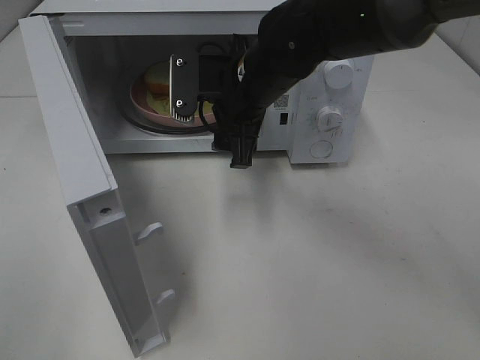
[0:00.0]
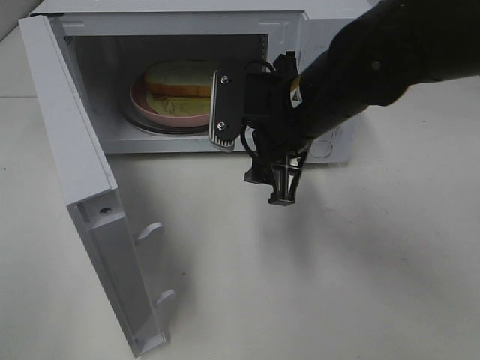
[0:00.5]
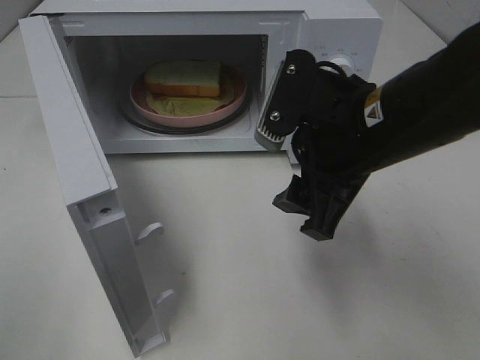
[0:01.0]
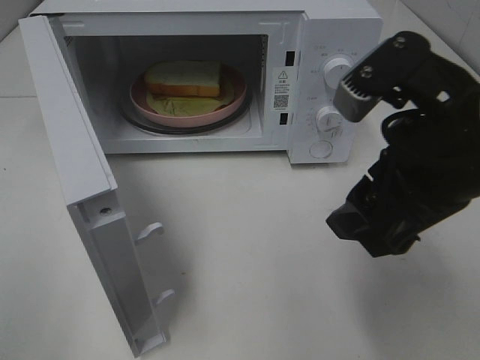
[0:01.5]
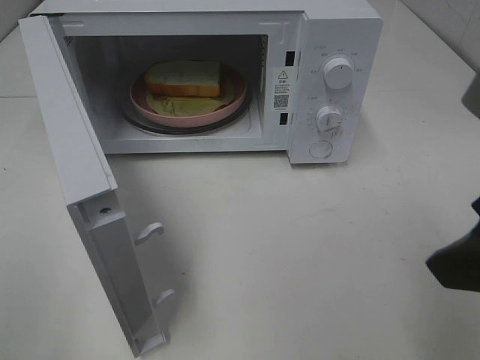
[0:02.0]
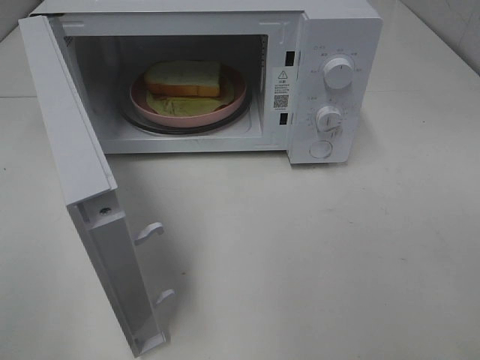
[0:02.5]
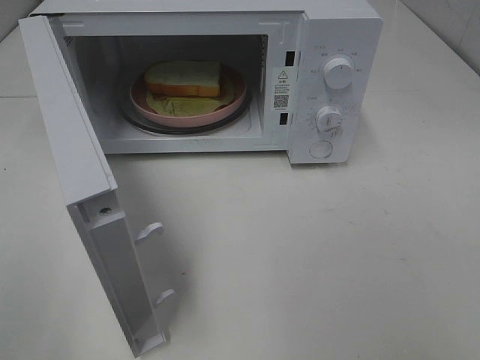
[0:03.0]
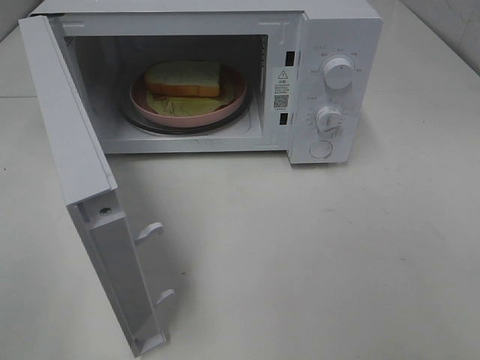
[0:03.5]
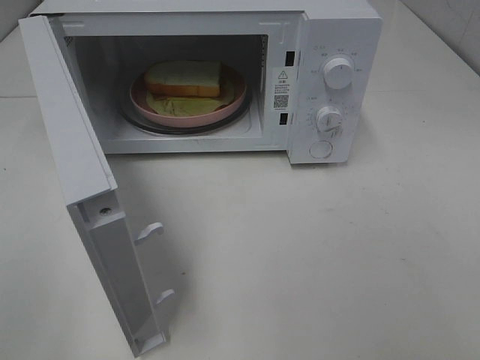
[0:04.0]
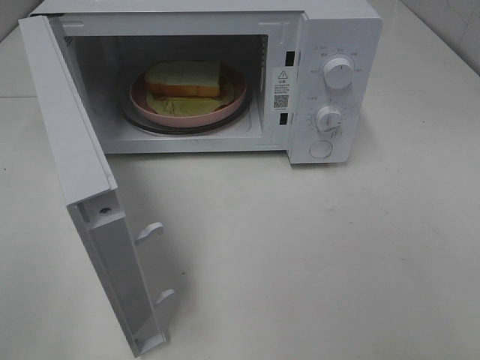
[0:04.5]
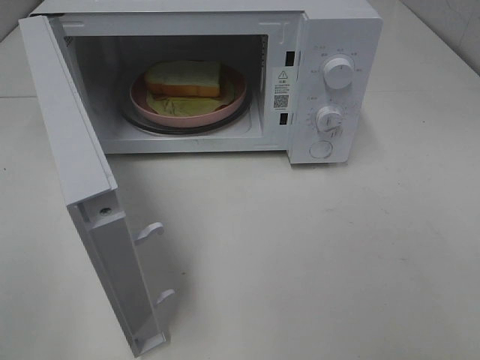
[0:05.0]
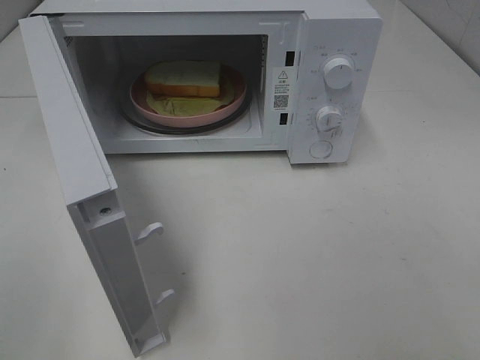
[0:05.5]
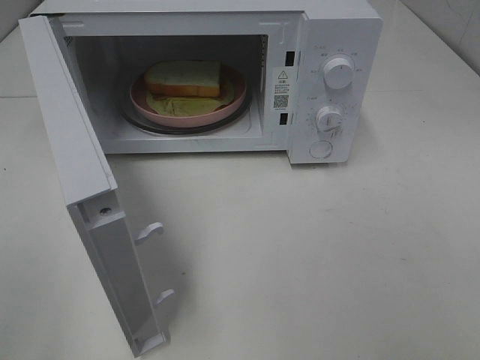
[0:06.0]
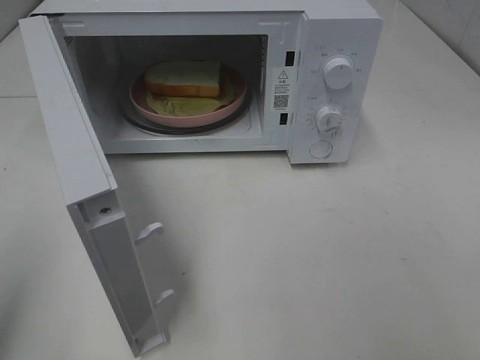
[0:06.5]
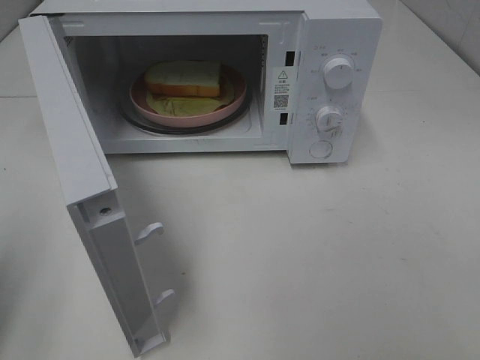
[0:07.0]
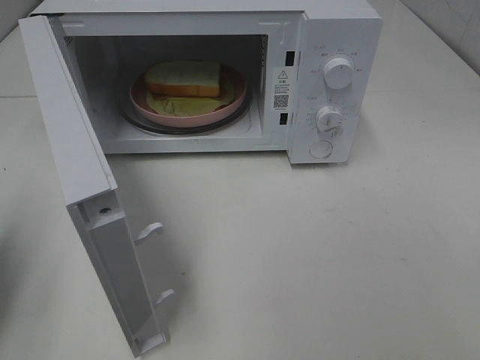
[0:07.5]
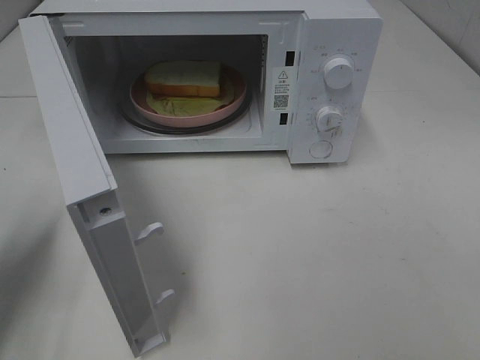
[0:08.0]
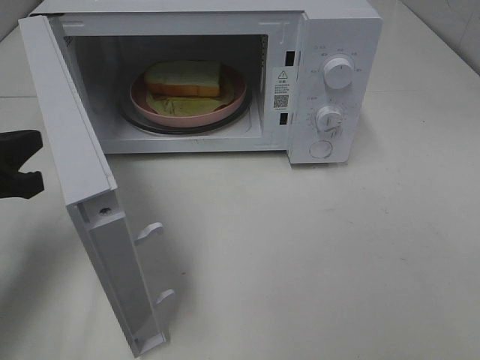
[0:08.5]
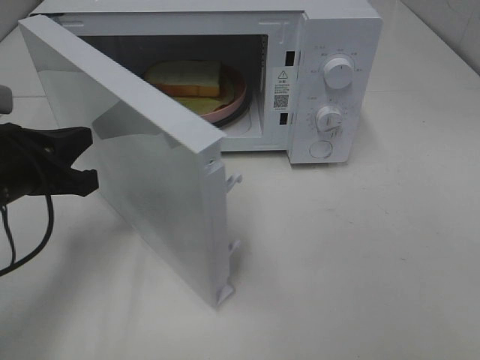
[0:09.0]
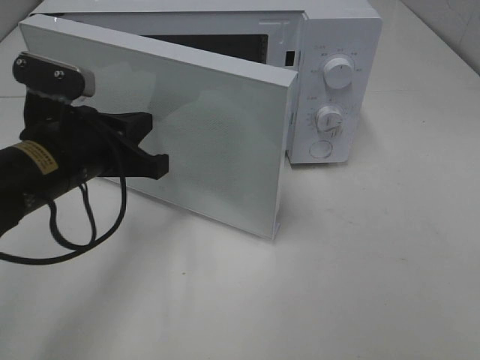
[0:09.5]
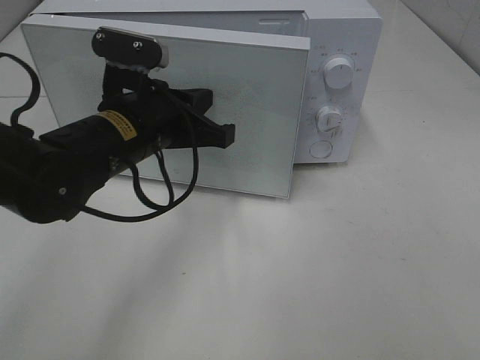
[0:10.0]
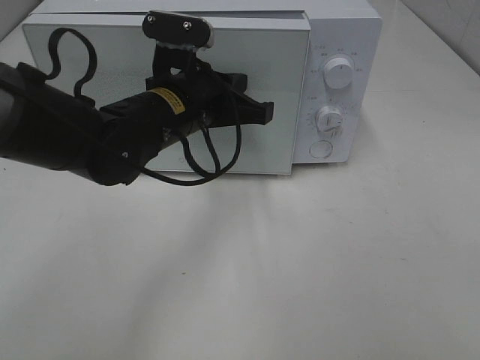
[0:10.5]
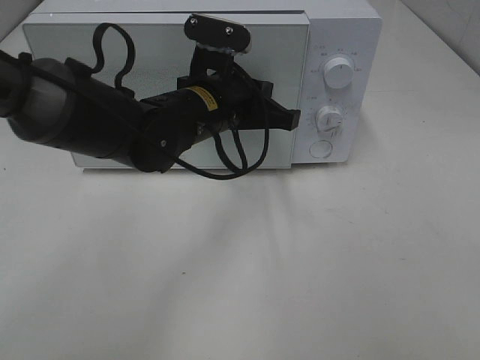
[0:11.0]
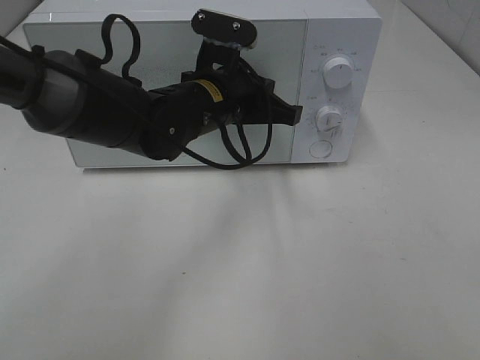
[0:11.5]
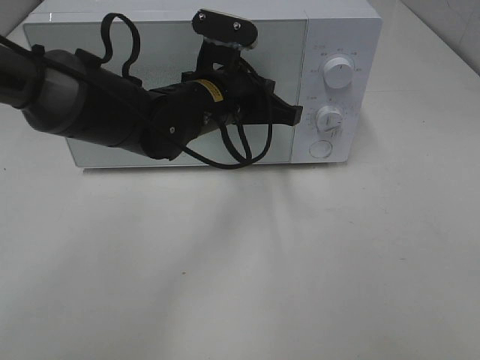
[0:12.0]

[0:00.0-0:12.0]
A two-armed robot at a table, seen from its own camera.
Task of the whole recording: Heat Sandwich.
0:00.0 to 0:02.0: The right gripper travels backward and to the right by about 30 cm.
0:02.0 to 0:04.0: The right gripper heads backward and to the right, covering roughly 15 cm.
0:06.0 to 0:08.0: The left gripper is displaced forward and downward by roughly 20 cm, and closes.
0:08.0 to 0:10.0: The left gripper goes approximately 25 cm to the right and forward.
0:10.0 to 0:12.0: The left gripper heads to the right and forward, covering approximately 10 cm.

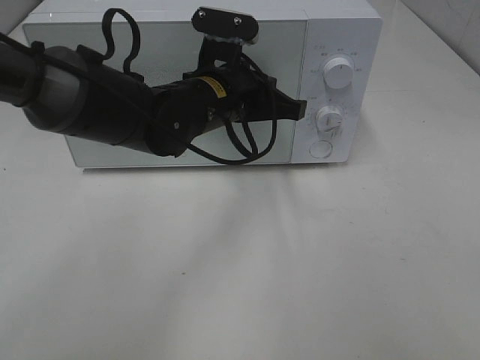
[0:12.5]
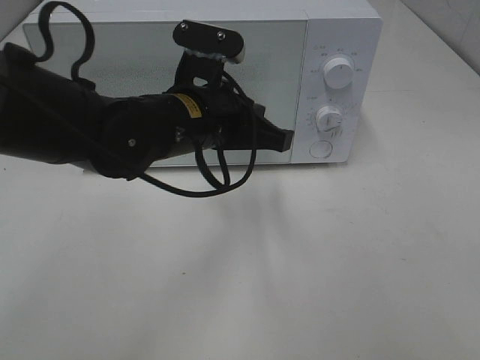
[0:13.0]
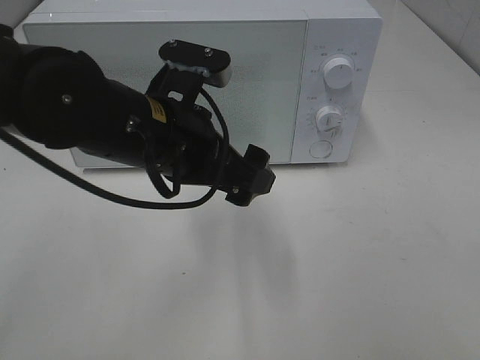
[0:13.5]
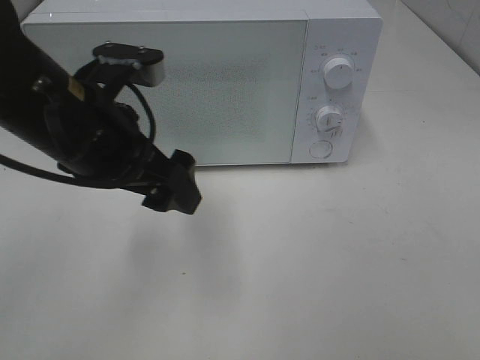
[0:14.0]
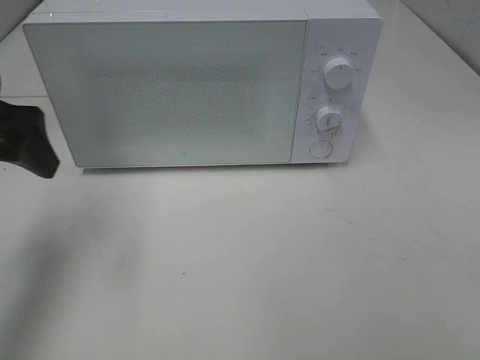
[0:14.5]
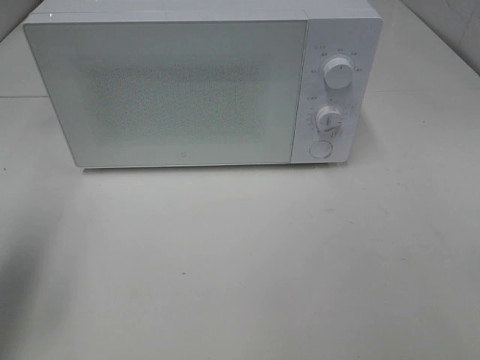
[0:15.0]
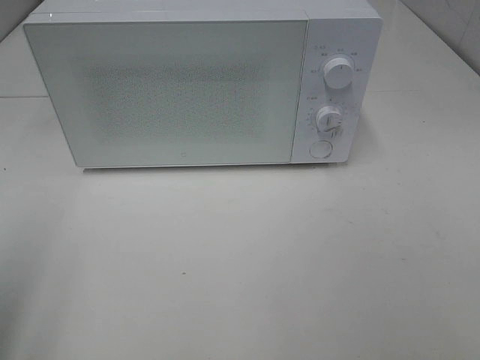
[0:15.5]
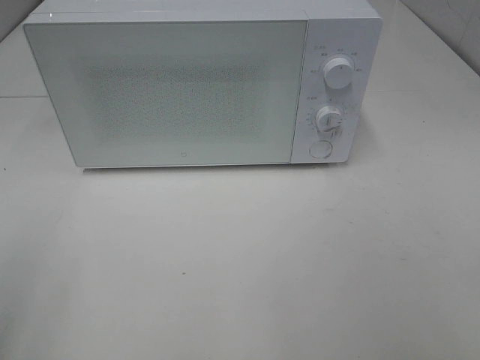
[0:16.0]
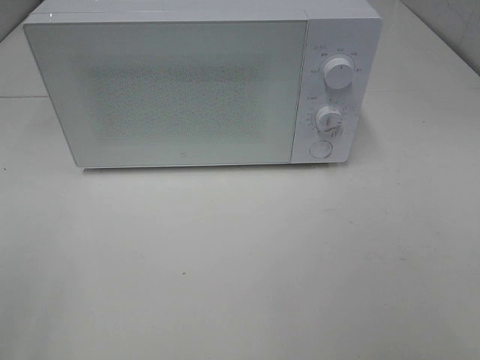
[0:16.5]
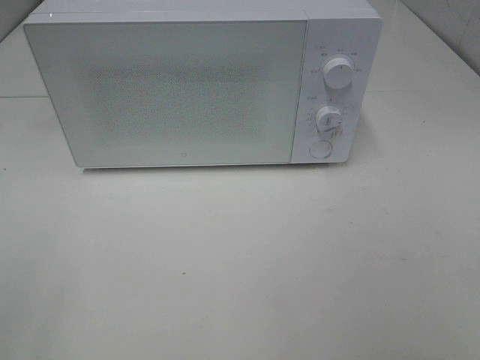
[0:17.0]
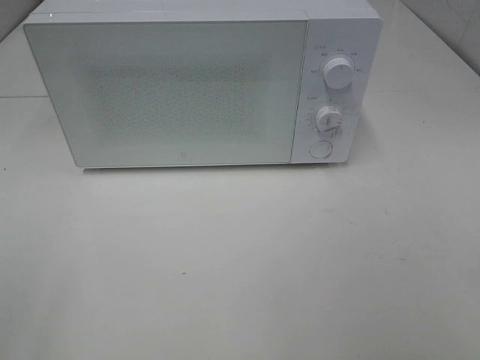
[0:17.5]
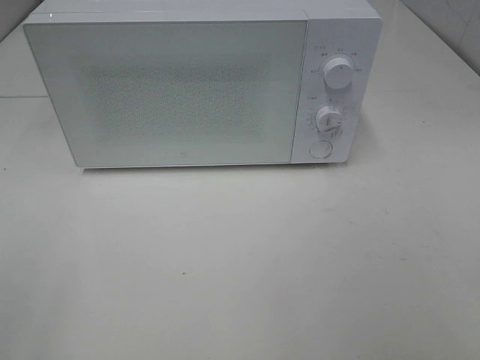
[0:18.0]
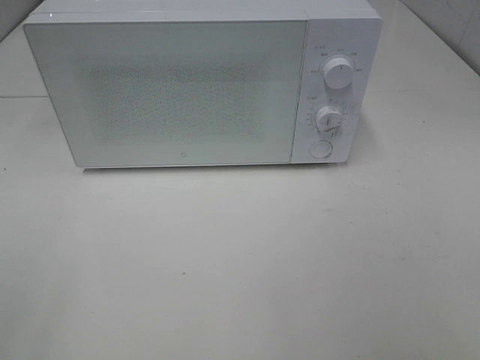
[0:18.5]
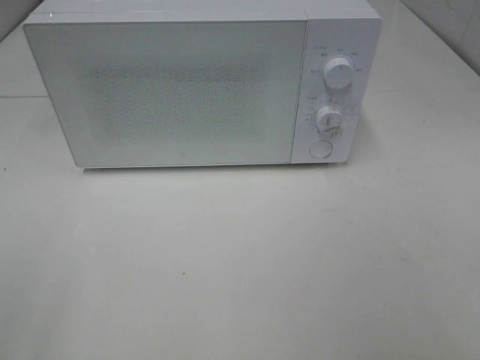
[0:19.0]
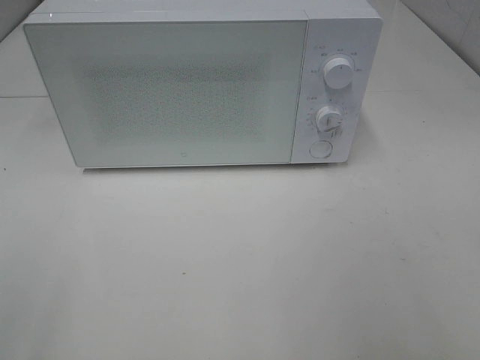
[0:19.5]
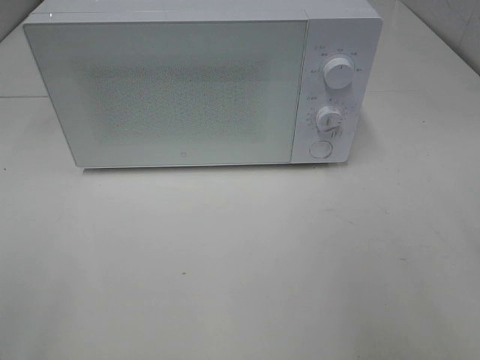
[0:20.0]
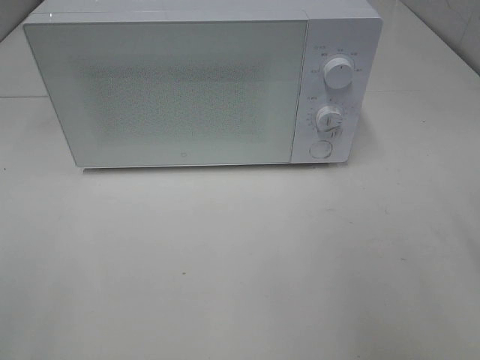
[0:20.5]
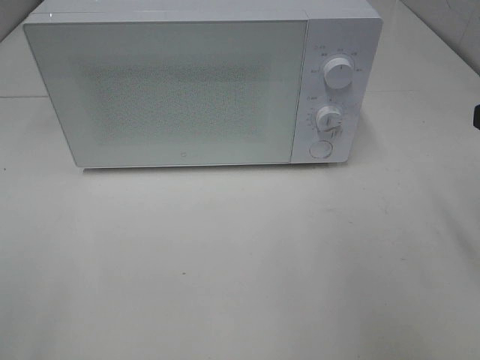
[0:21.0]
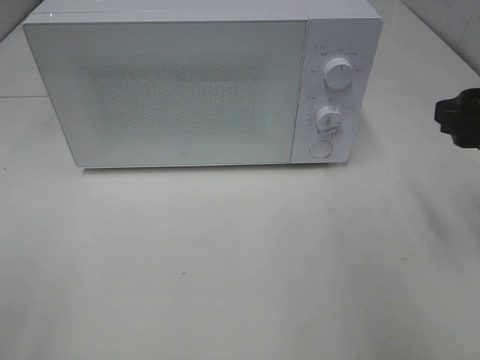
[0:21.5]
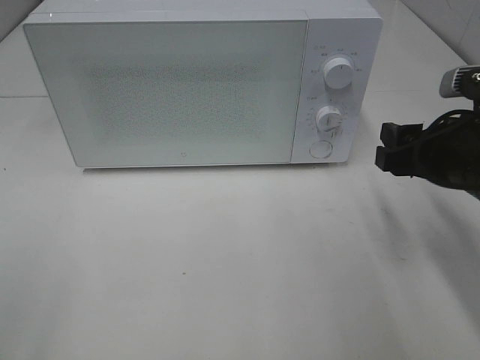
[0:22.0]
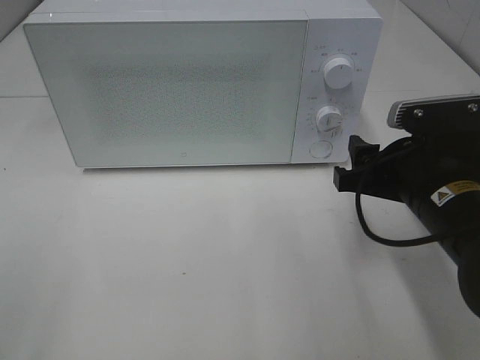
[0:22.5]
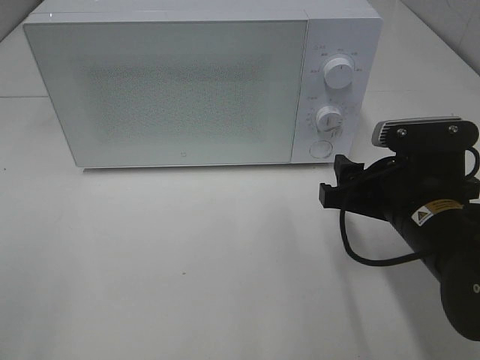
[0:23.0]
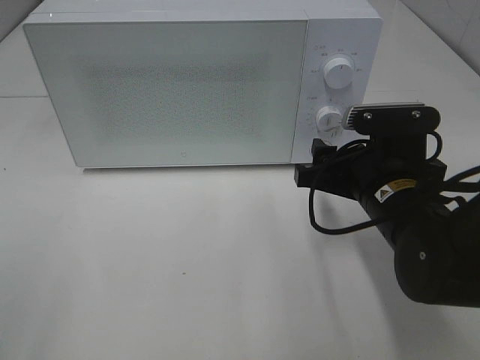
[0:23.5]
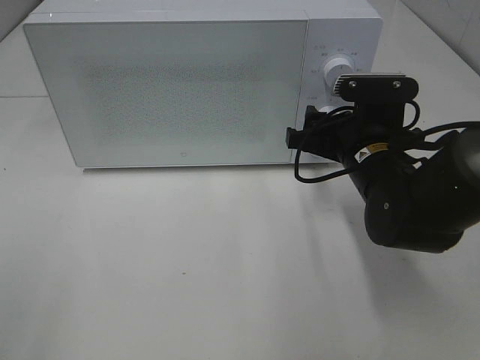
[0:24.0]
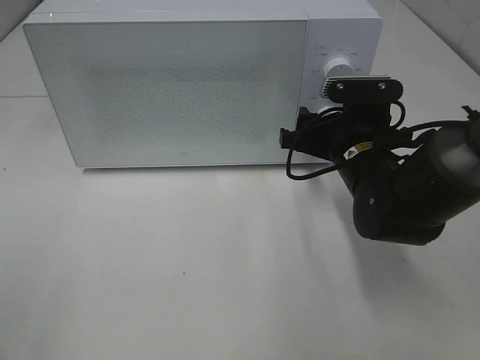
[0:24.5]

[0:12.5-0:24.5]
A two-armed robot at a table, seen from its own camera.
Task of the whole recording: Heat Sandwich.
0:12.5 to 0:14.5: The left gripper travels to the left by approximately 25 cm, and opens up.
0:14.5 to 0:16.5: The left gripper shifts approximately 25 cm backward.
0:16.5 to 0:18.5: Neither gripper changes place.
0:20.5 to 0:22.5: The right gripper heads downward, to the left and forward, covering some 20 cm.
0:22.5 to 0:24.5: The right gripper is displaced forward by some 10 cm.

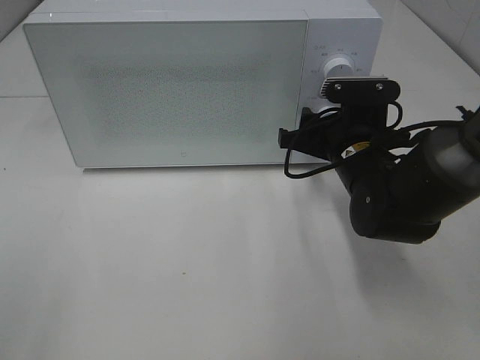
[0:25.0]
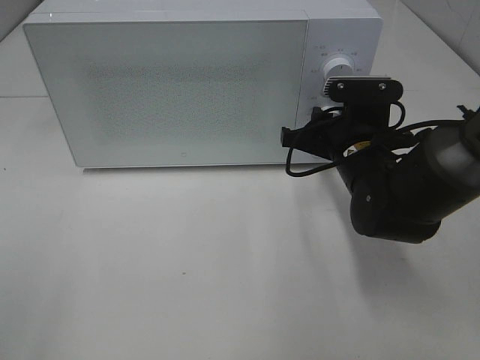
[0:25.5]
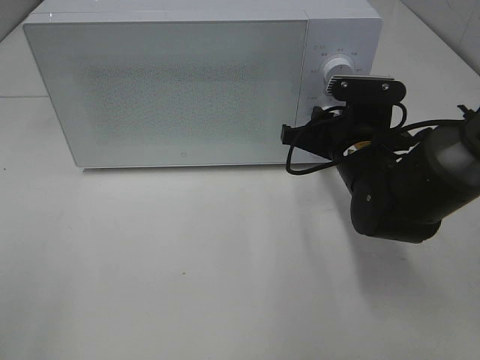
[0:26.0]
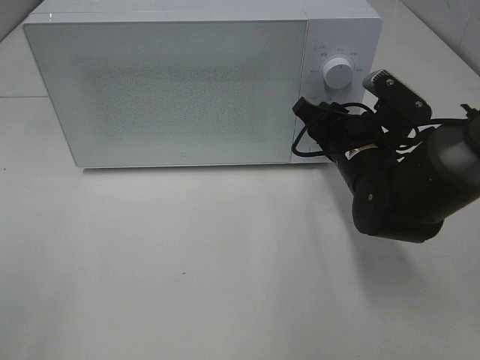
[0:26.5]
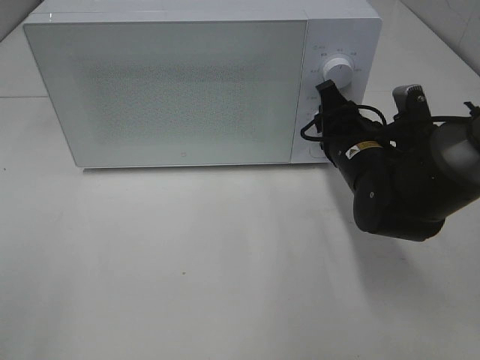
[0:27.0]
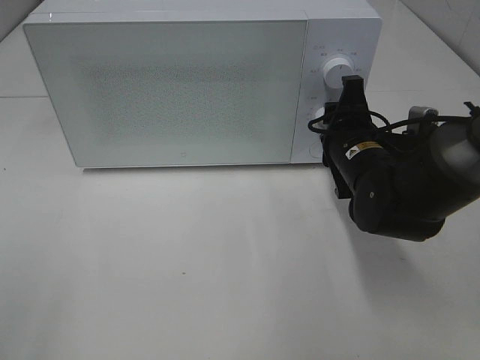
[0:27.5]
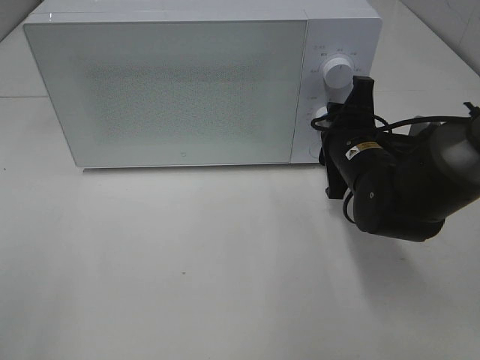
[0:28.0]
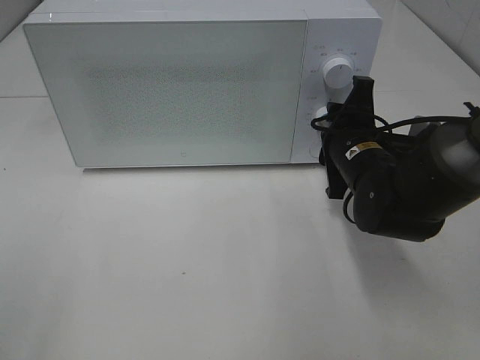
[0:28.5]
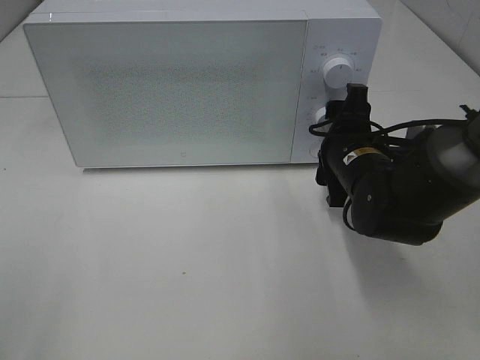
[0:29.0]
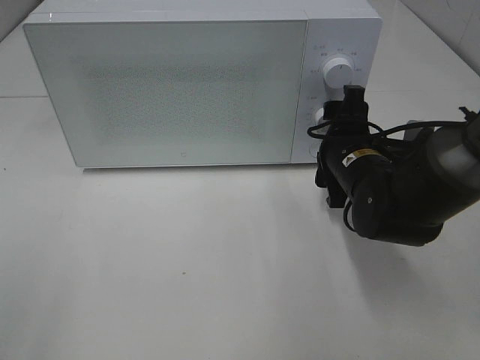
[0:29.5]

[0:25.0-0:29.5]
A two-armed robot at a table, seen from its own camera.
Task of the whole recording: Heat Sandwich.
Step, 0:25.0 to 0:29.0: Right hand: twist timer button.
0:27.0 to 0:29.5: The right gripper opens up.
